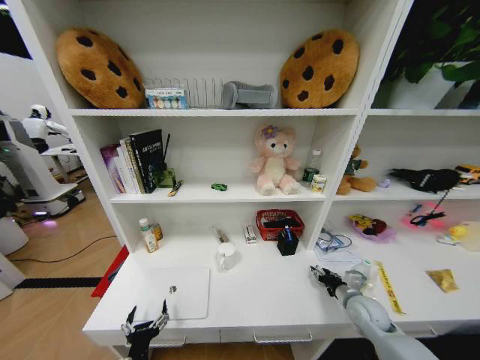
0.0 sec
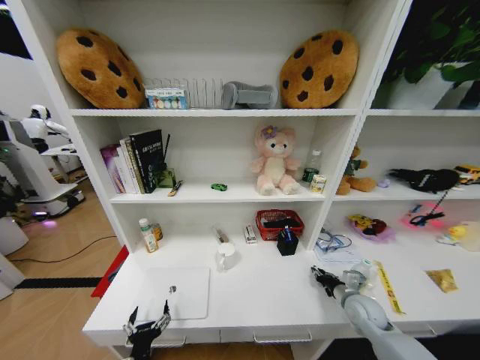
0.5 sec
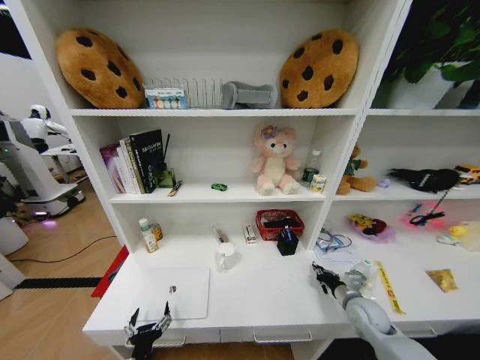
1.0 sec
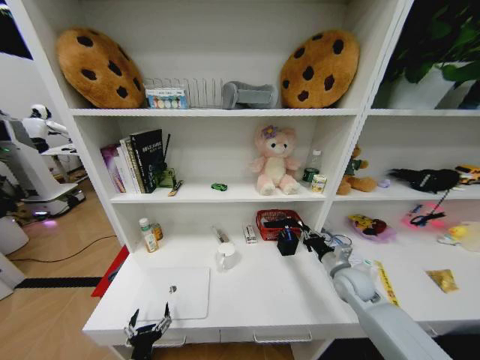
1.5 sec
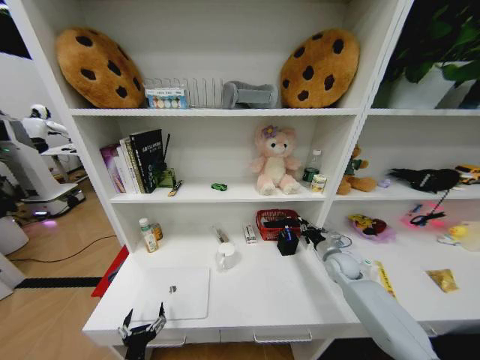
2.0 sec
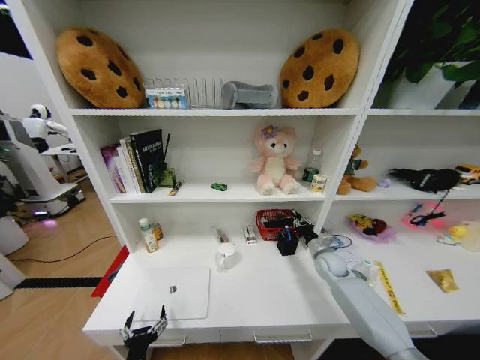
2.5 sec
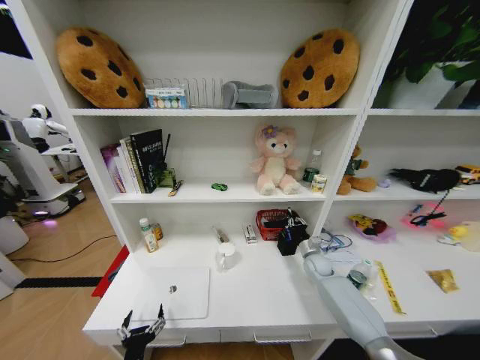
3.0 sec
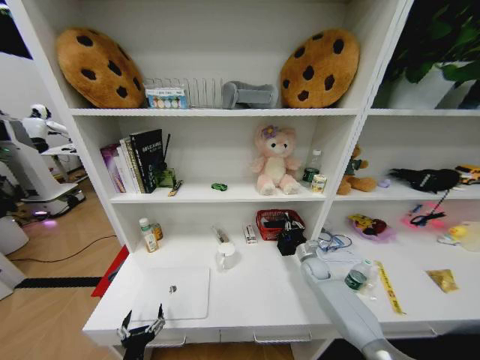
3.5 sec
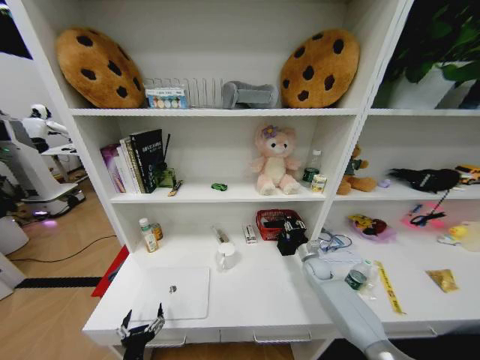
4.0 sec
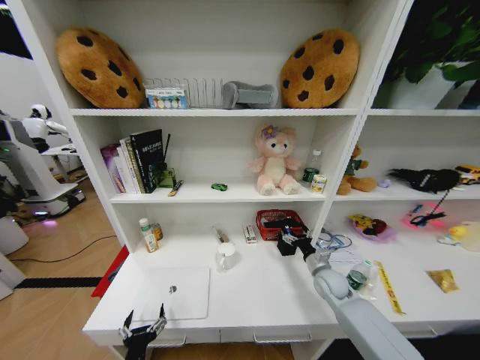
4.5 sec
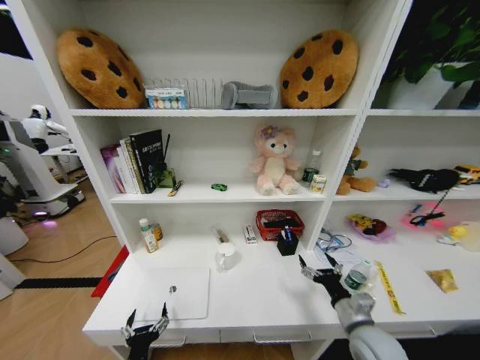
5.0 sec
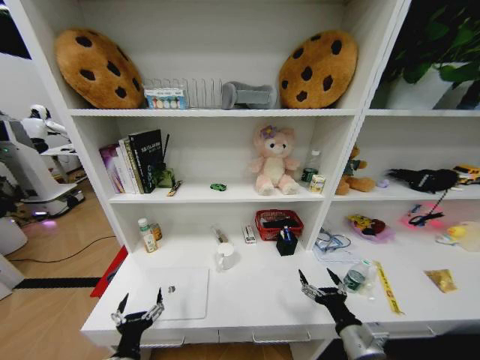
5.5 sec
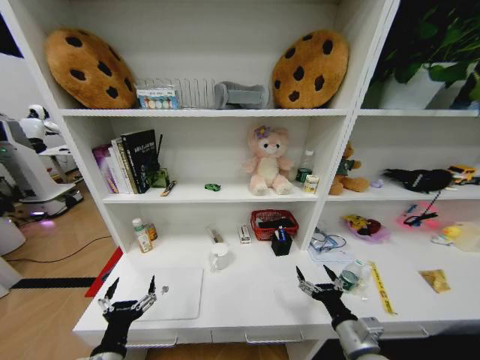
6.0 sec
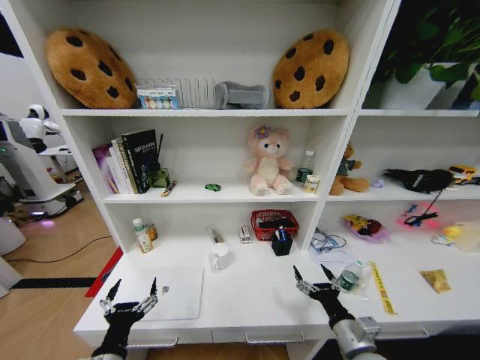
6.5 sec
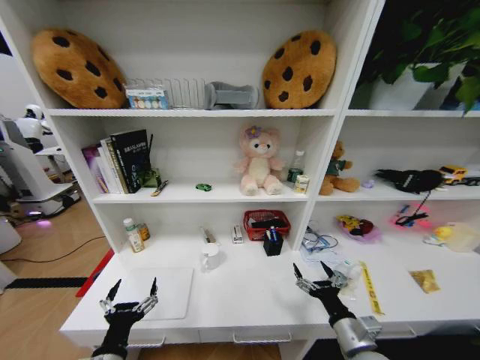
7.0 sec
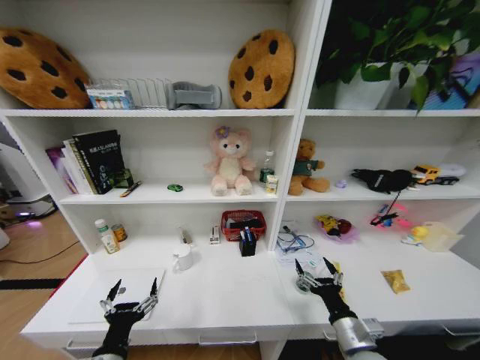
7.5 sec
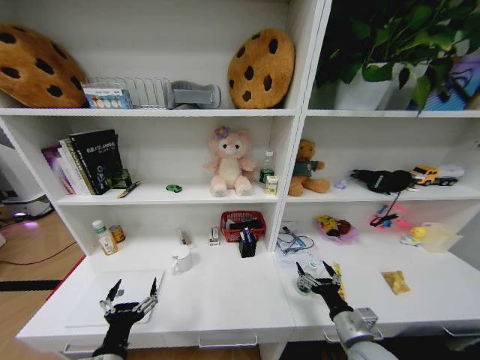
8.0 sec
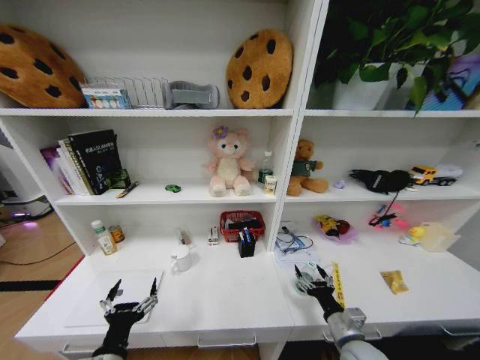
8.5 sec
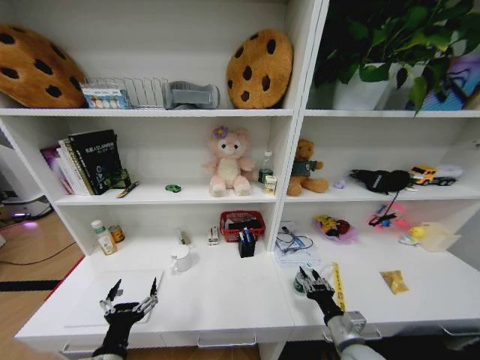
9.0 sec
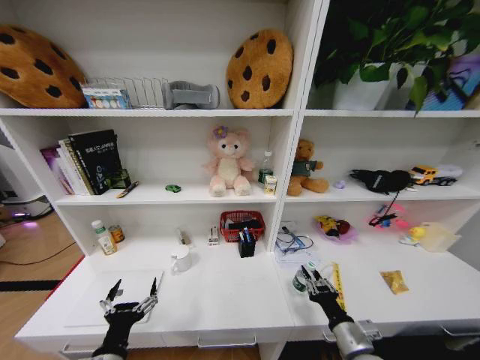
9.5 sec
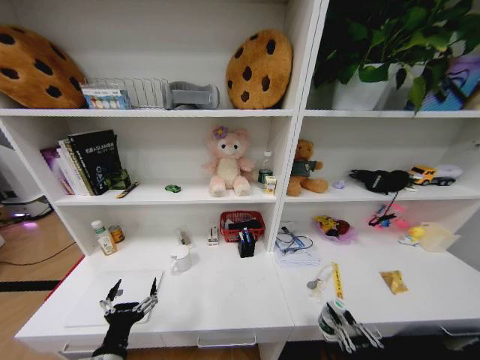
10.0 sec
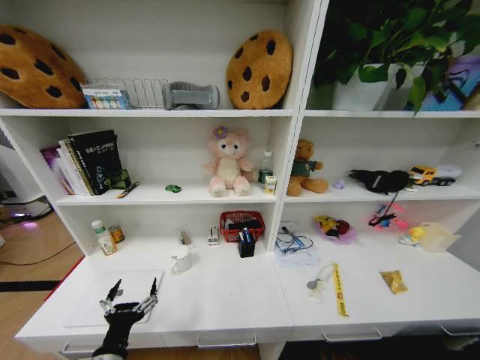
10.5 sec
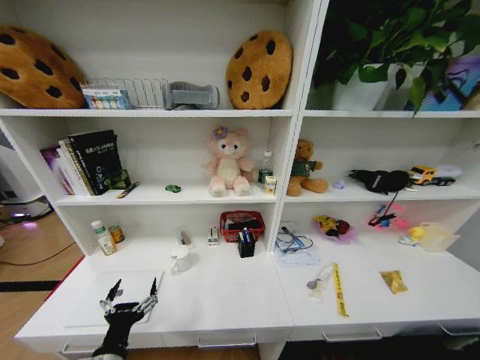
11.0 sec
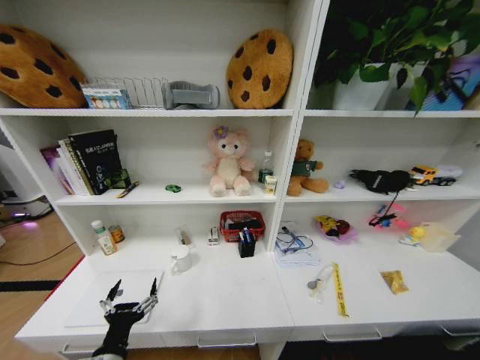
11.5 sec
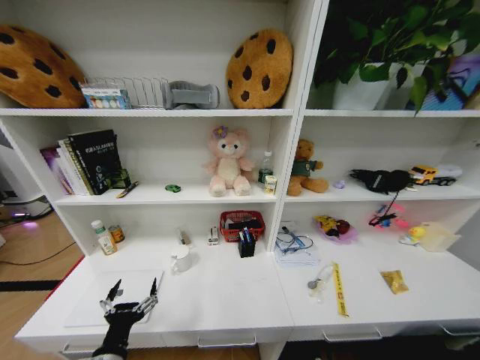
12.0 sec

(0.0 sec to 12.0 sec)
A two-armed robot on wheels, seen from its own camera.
Task of the whole recording: Organize the objects on the table.
0.0 sec - 2.0 sec: The right gripper shifts approximately 15 cm forward, and closes up.
2.0 sec - 4.0 sec: The right gripper is displaced downward by approximately 5 cm.
4.0 sec - 6.0 sec: The right gripper shifts approximately 30 cm backward, and opens its fingers; the left gripper shifts about 10 cm upward.
8.0 sec - 10.0 sec: The right gripper is displaced backward by about 15 cm, and closes its fingers.
10.0 sec - 12.0 sec: The right gripper goes some 40 cm downward.

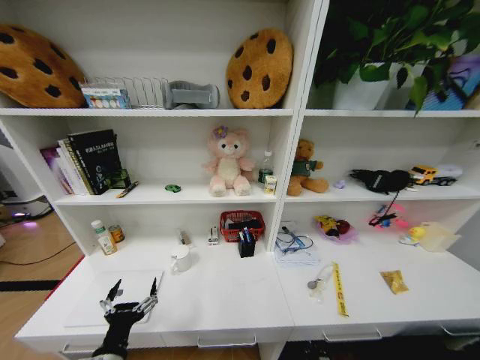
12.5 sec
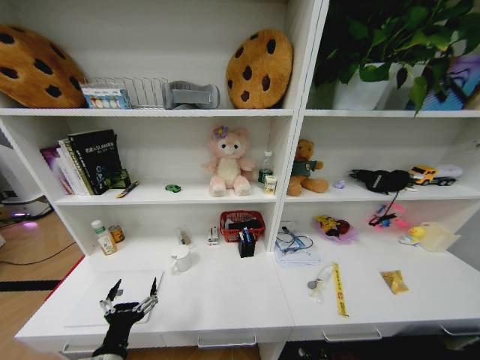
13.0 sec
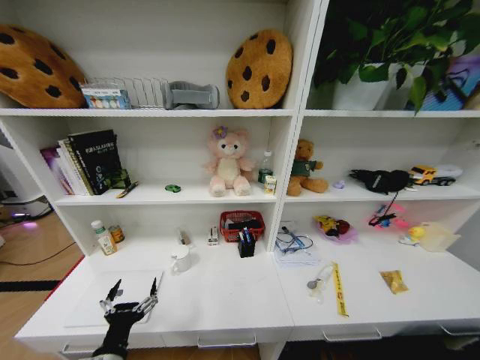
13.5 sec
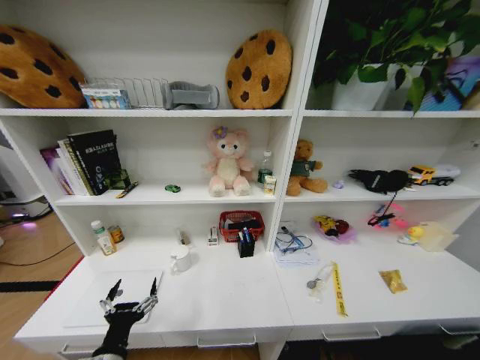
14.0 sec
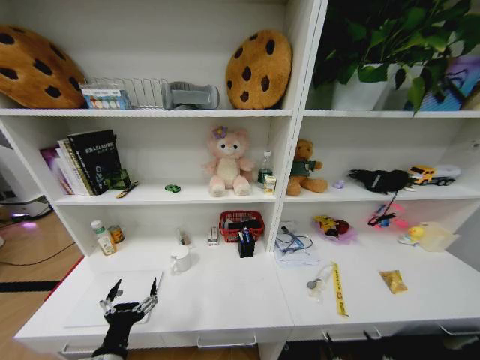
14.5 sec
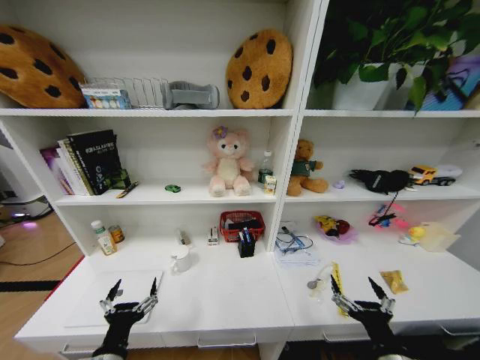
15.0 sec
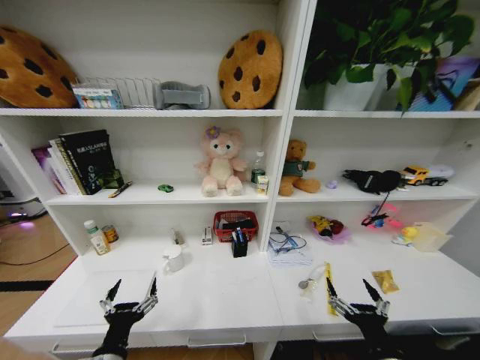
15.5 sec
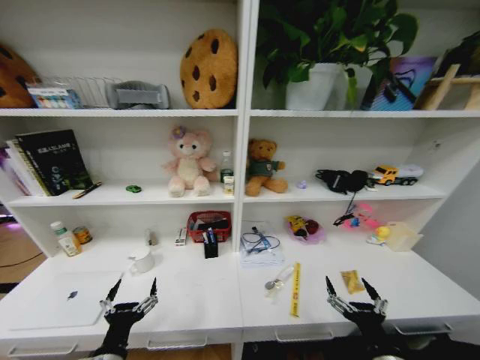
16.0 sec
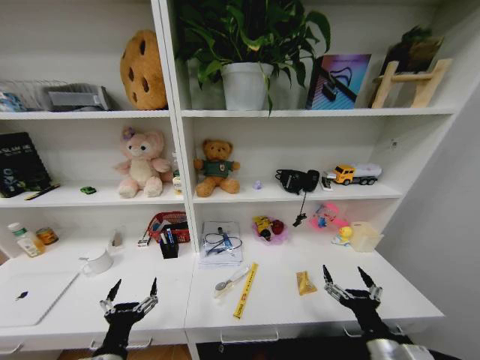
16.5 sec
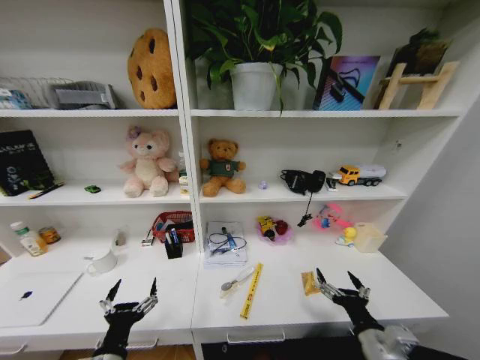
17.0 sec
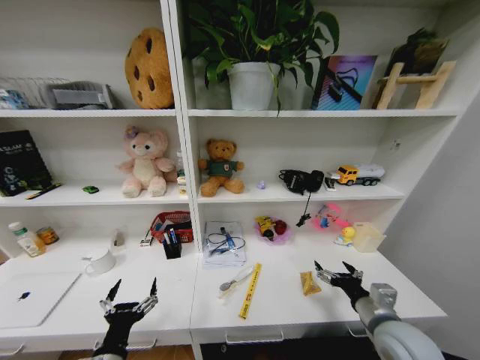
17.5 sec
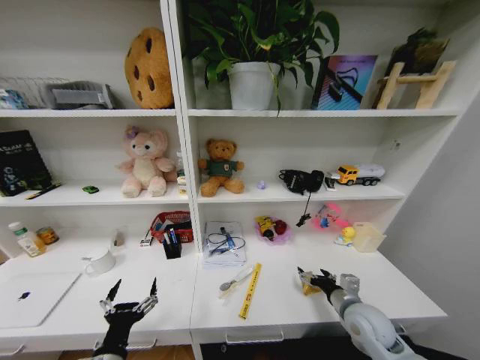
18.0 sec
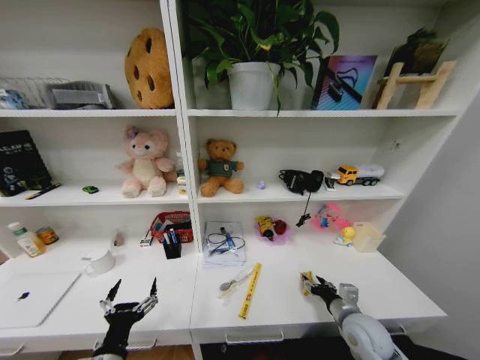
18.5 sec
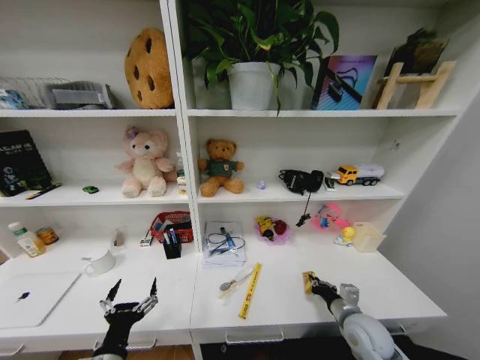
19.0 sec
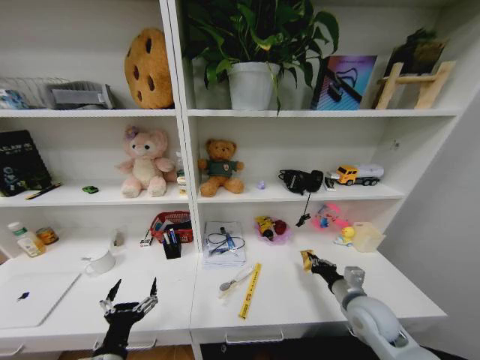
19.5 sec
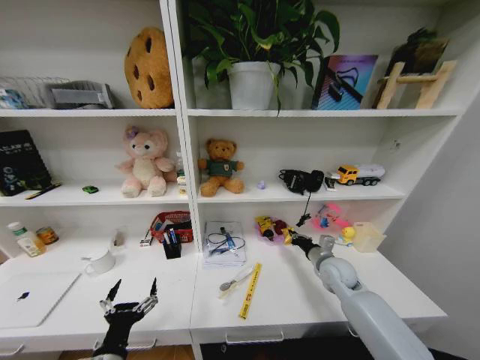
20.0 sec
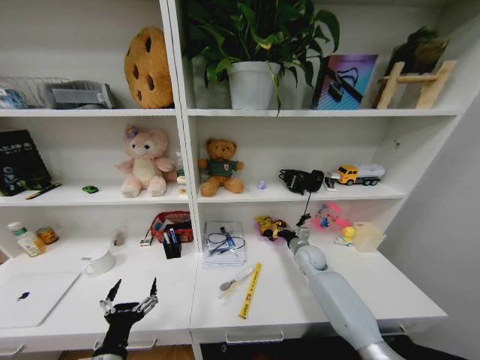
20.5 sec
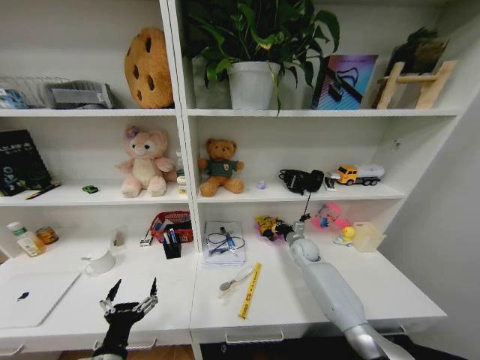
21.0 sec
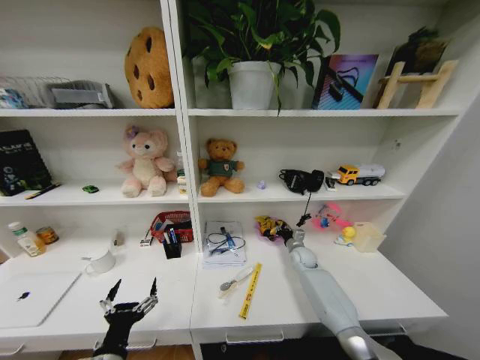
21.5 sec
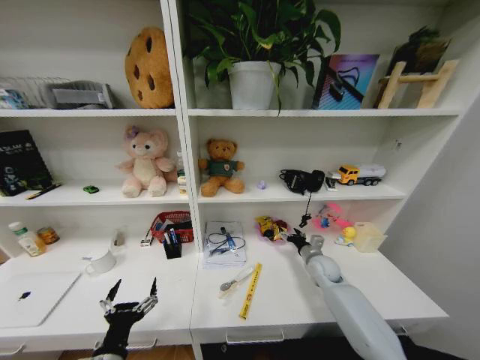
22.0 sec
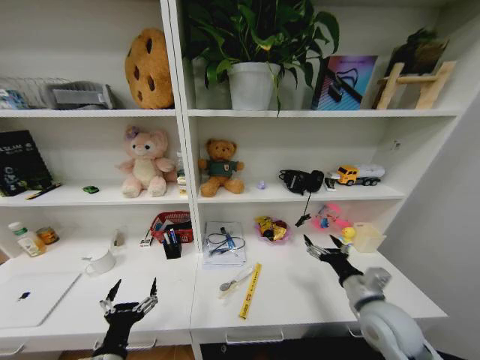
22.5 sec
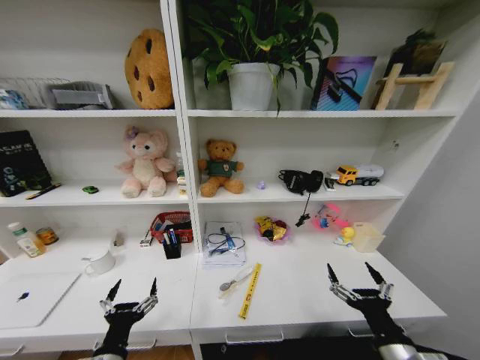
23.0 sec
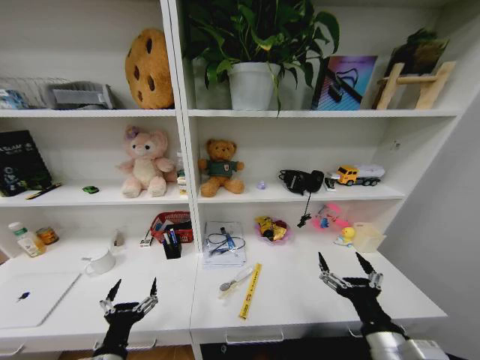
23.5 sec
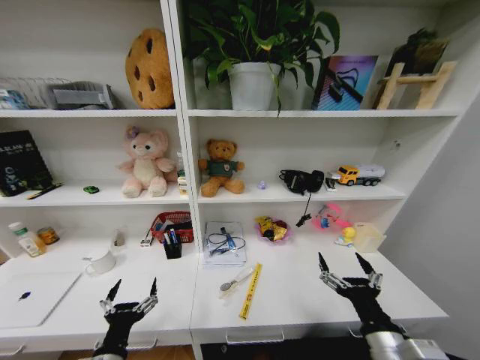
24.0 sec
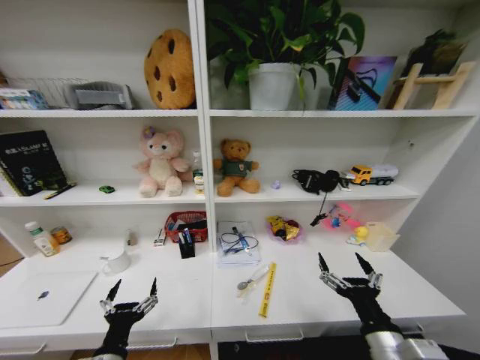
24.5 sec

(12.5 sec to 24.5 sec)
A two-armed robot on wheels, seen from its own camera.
Task of the whole recording: Organize the objects on the table.
12.5 sec - 14.5 sec: The right gripper goes roughly 40 cm upward and backward, and opens its fingers.
14.5 sec - 16.5 sec: The right gripper shifts about 15 cm forward and upward.
16.5 sec - 18.5 sec: The right gripper goes approximately 15 cm forward.
18.5 sec - 20.5 sec: The right gripper is displaced forward by some 20 cm, and closes.
20.5 sec - 22.5 sec: The right gripper heads backward, covering approximately 25 cm, and opens up.
22.5 sec - 24.5 sec: The right gripper heads backward, covering roughly 10 cm.

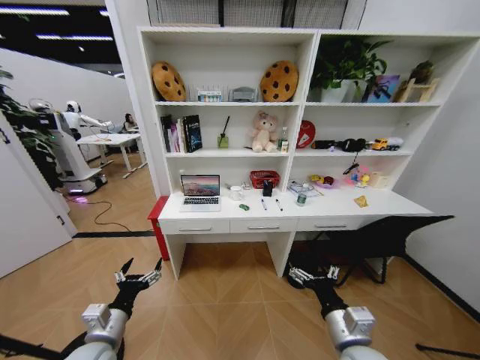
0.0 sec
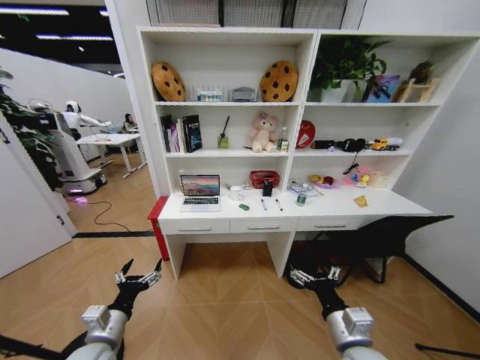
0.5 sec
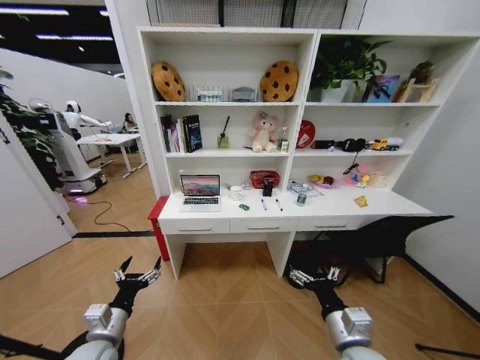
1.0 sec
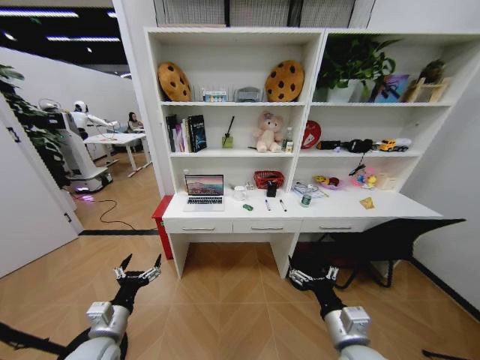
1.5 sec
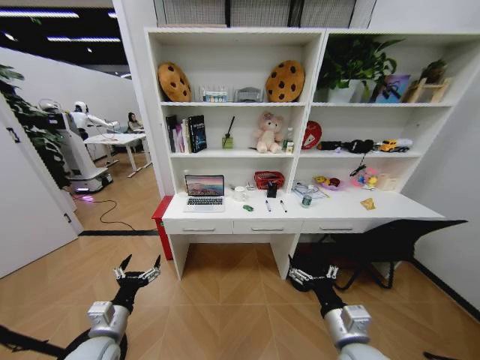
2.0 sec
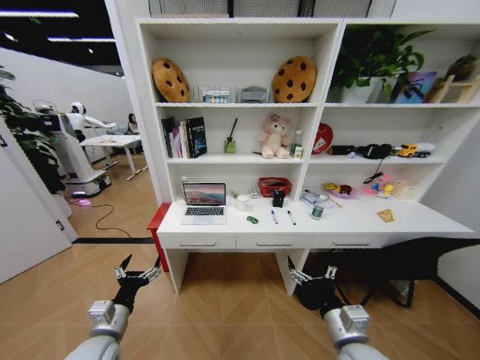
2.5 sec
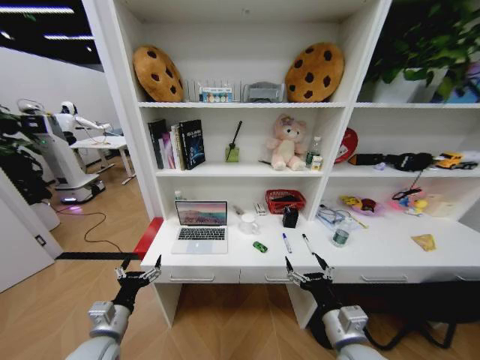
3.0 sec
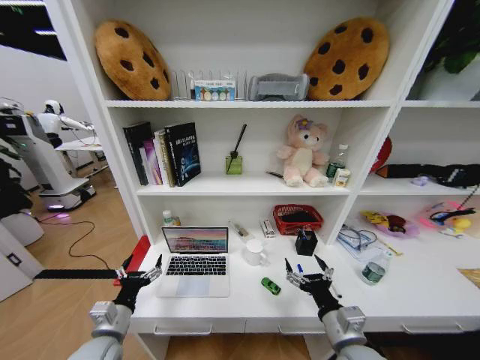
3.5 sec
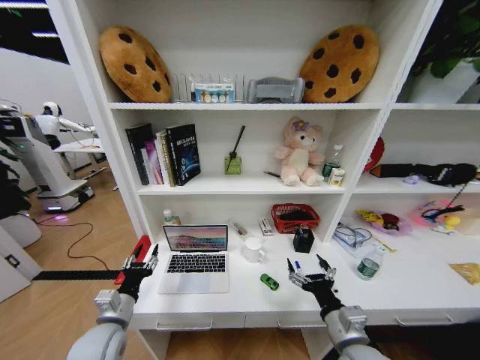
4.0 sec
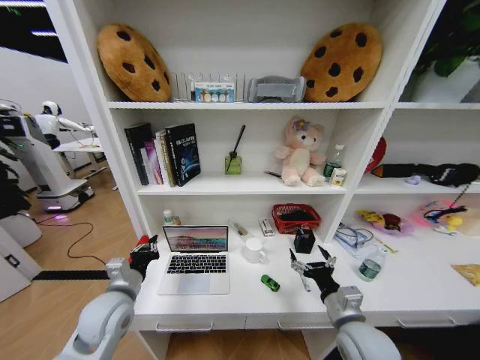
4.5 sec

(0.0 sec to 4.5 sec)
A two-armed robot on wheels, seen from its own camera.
Task of the whole recording: Organize the objects on the table.
2.0 sec - 4.5 sec: The left gripper goes about 10 cm upward and forward, and closes.
